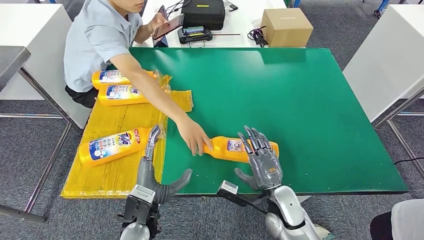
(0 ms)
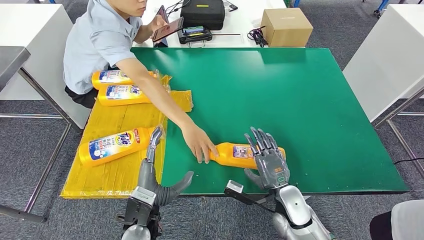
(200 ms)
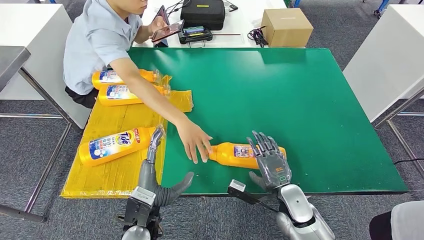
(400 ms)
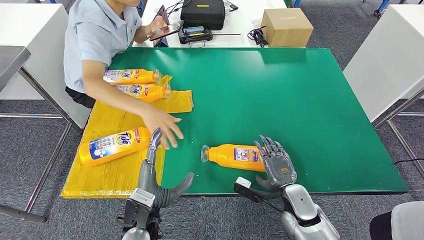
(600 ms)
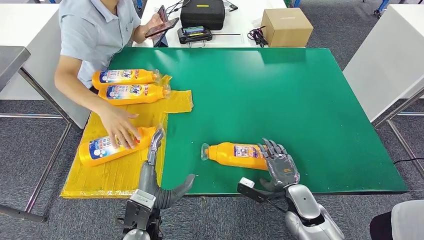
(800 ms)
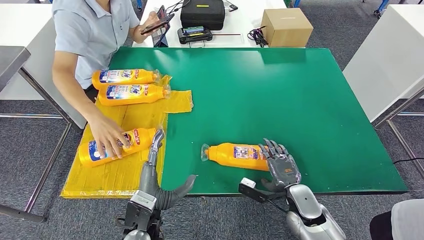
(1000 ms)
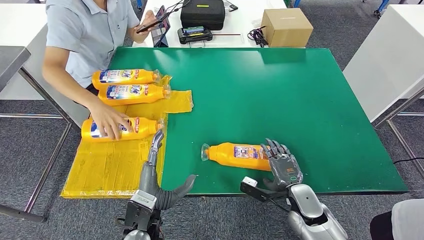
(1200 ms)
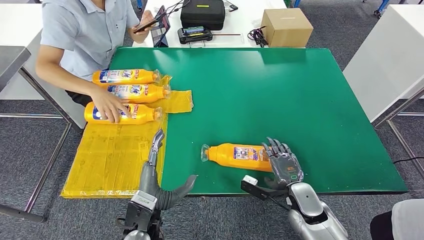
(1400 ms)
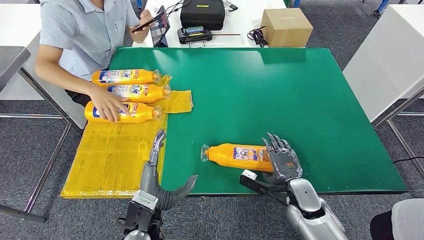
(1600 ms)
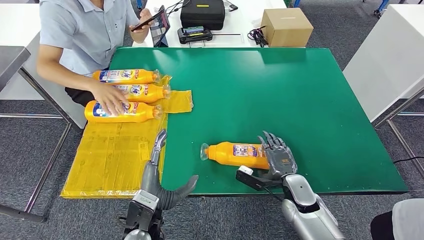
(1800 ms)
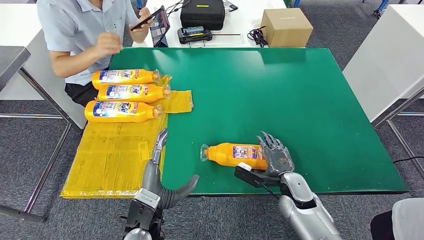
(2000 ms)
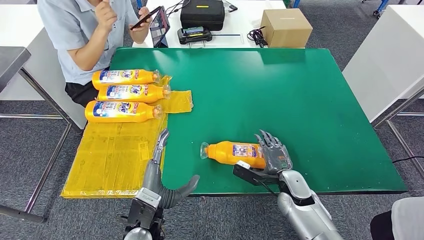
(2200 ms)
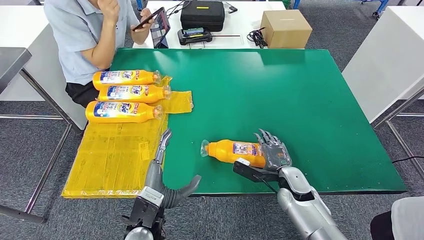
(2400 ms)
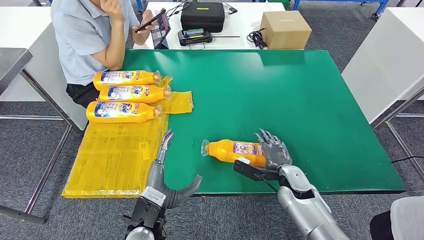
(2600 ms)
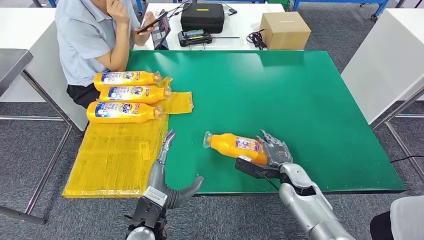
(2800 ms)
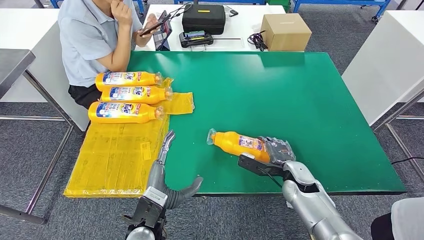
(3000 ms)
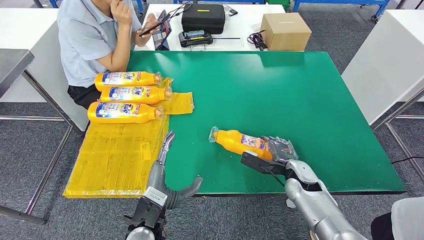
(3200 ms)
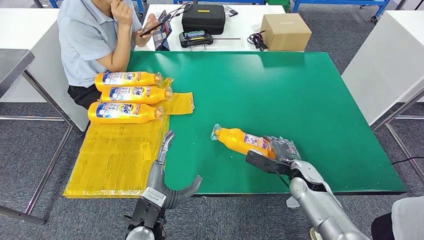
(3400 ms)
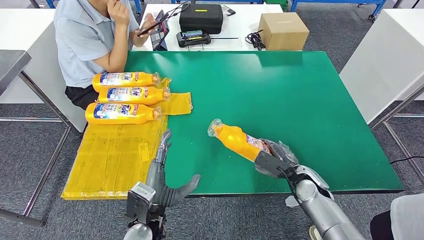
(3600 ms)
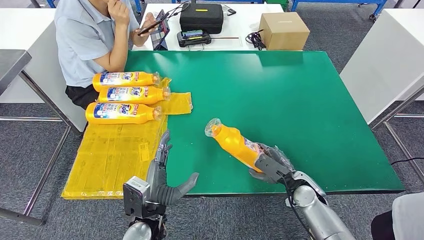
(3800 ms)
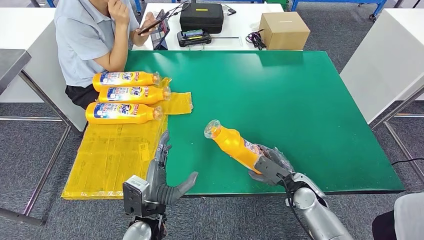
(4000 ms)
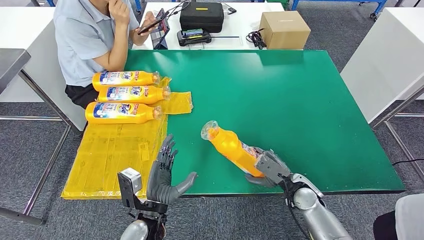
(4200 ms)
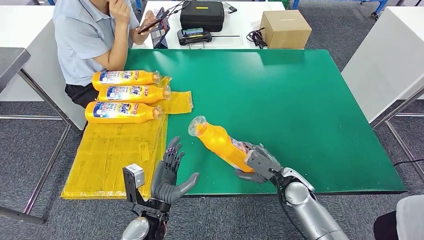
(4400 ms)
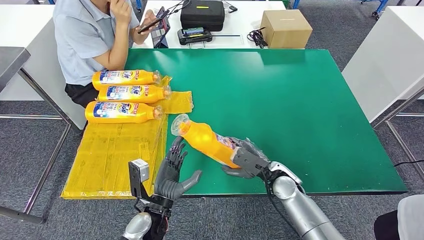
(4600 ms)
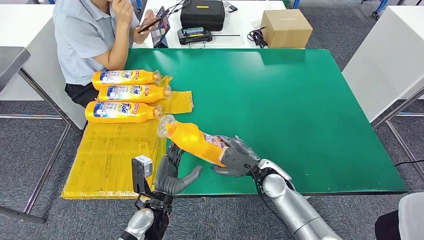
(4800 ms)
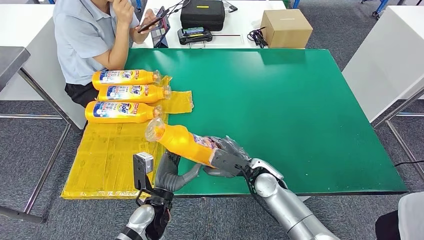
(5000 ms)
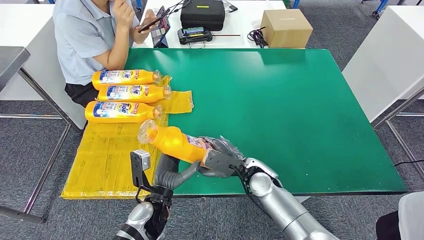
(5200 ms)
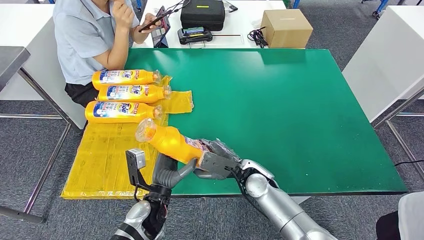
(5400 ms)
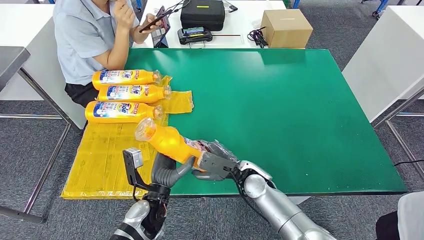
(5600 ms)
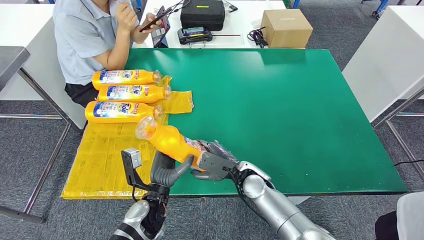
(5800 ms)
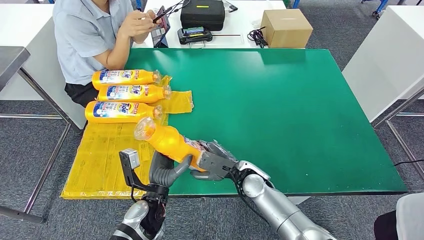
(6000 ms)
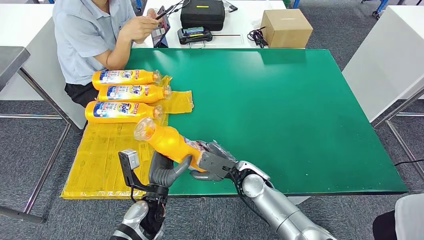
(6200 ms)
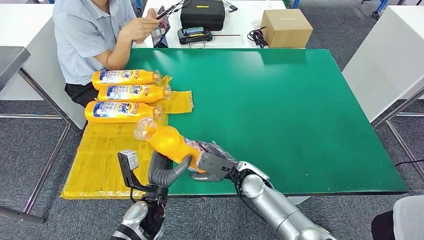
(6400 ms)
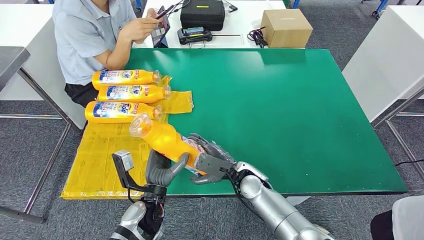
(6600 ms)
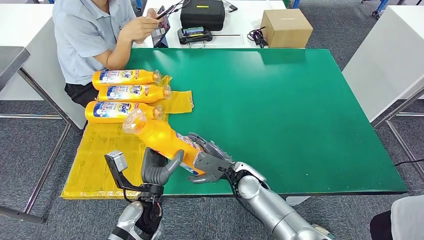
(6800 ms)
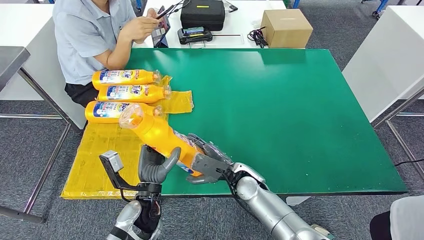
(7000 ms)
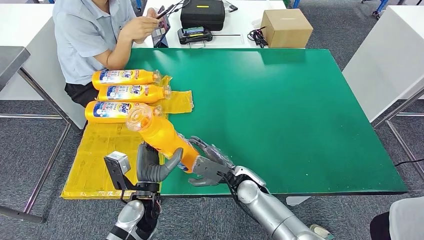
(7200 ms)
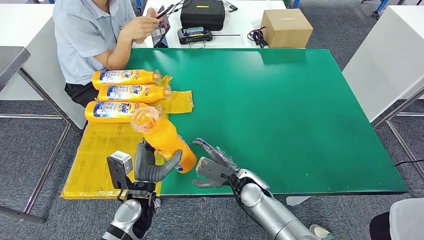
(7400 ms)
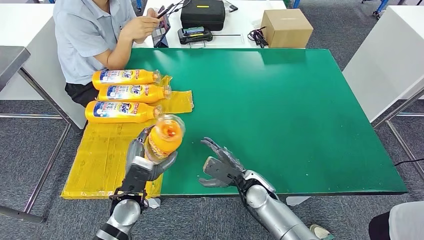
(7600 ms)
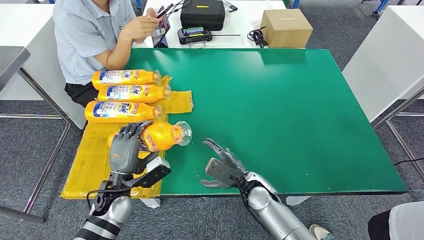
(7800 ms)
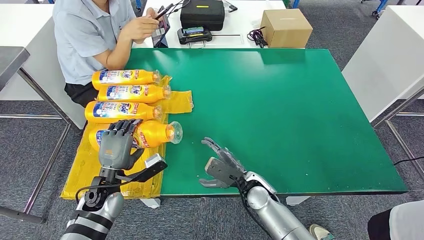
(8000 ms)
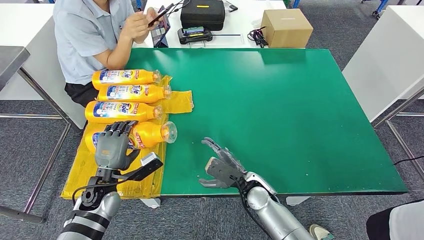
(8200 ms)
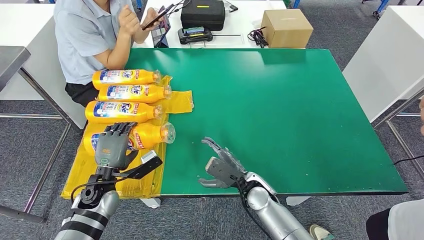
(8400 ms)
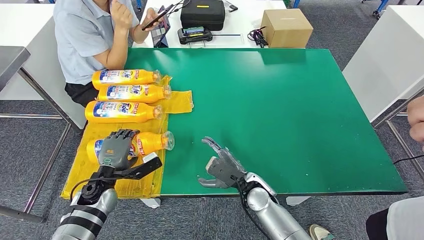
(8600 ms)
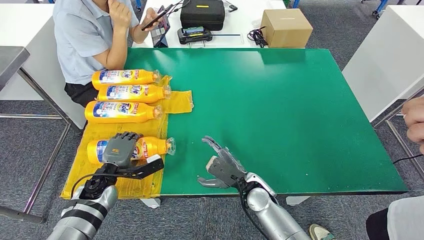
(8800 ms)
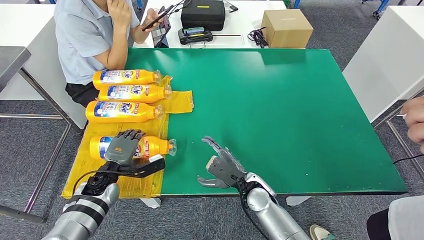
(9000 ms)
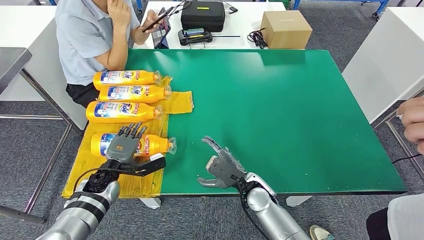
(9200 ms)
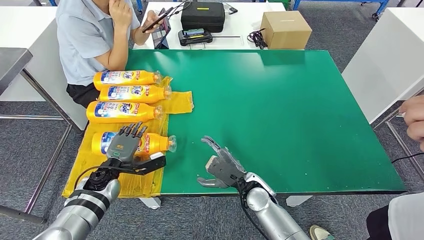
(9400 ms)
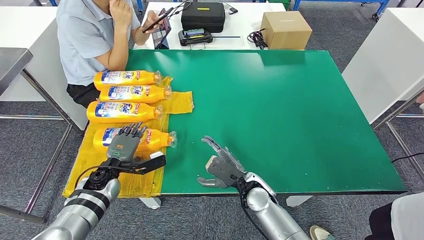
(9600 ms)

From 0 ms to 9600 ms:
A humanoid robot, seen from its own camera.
Step, from 0 ms to 5200 ms: Pick up the fast-moving consumer goods bottle from the table.
Step, from 6000 ms to 9600 ms: Flip the fast-moving consumer goods bottle to the front side.
From 0 ms to 1600 ms: The right hand shifts some 5 cm to the right.
From 4800 ms to 6400 ms: The right hand heads to the left, covering some 5 cm.
From 6400 ms to 8000 ms: The left hand shifts some 10 cm to the left.
From 8000 ms to 9600 ms: The left hand shifts approximately 5 cm forward.
